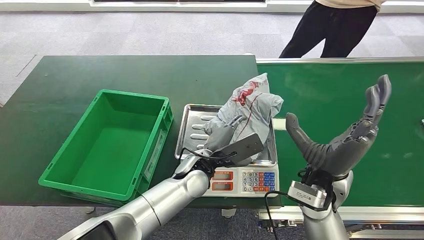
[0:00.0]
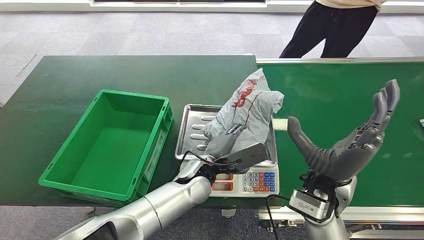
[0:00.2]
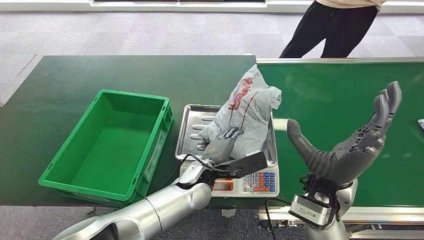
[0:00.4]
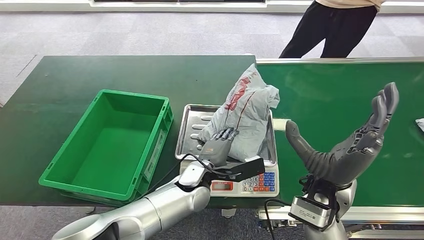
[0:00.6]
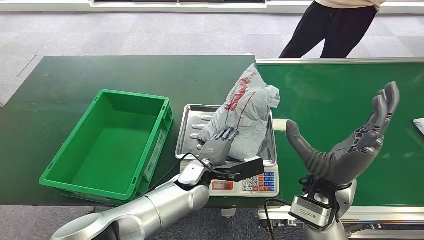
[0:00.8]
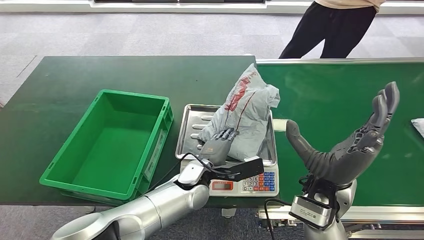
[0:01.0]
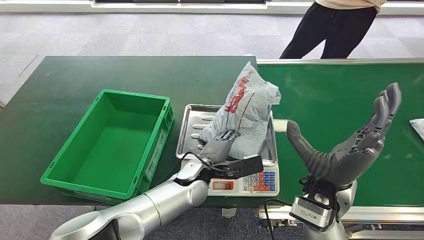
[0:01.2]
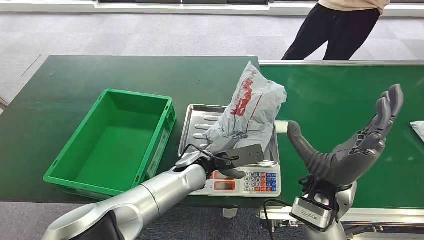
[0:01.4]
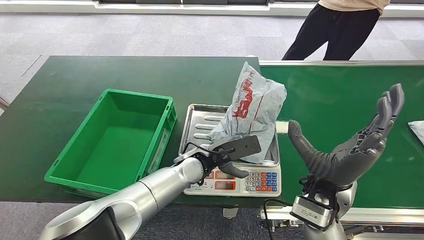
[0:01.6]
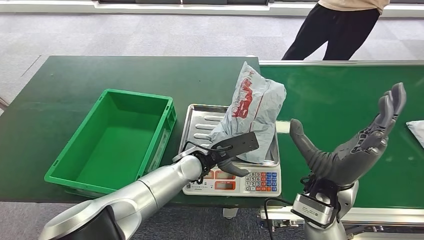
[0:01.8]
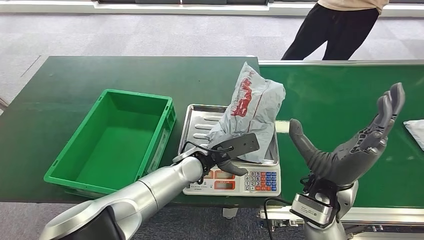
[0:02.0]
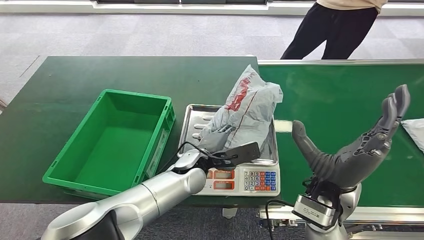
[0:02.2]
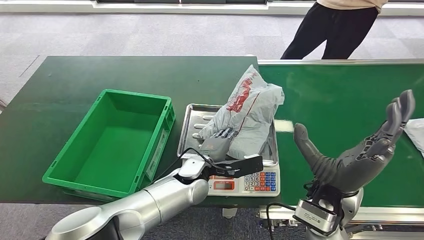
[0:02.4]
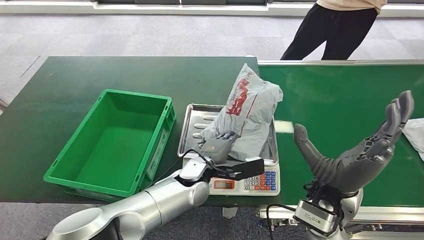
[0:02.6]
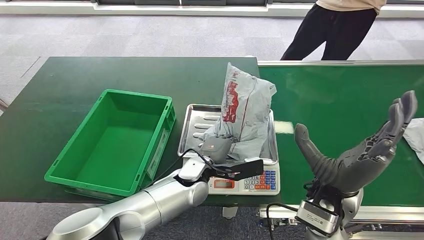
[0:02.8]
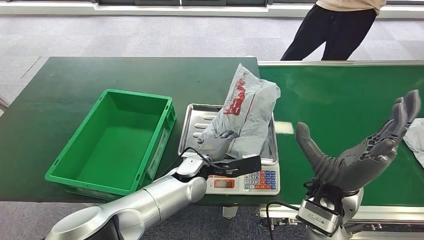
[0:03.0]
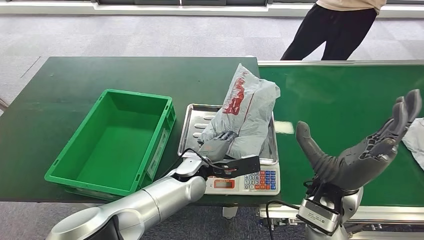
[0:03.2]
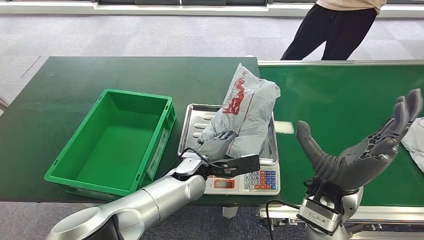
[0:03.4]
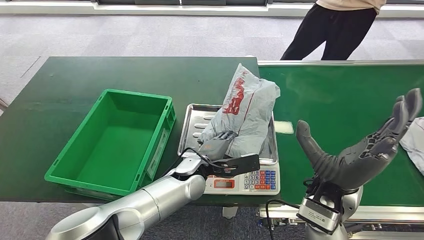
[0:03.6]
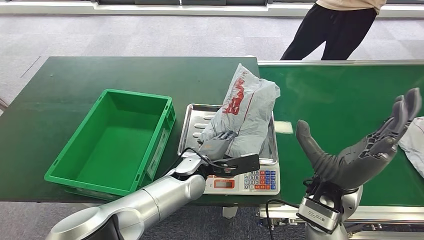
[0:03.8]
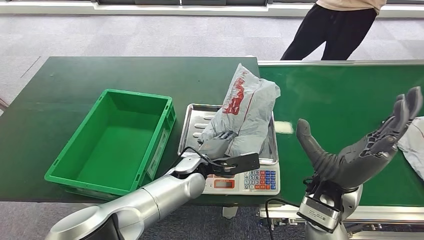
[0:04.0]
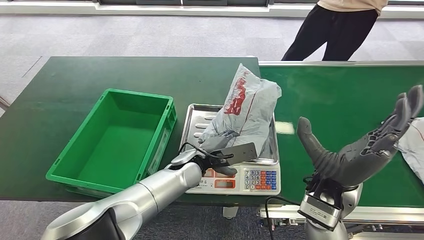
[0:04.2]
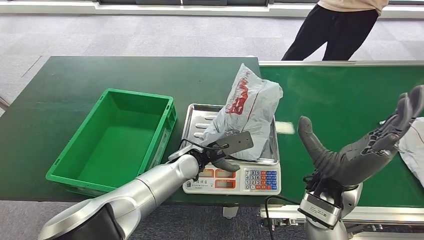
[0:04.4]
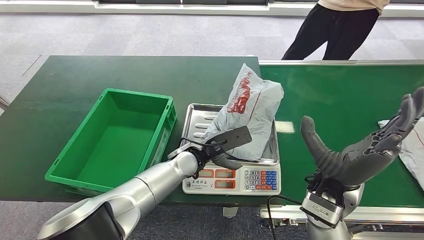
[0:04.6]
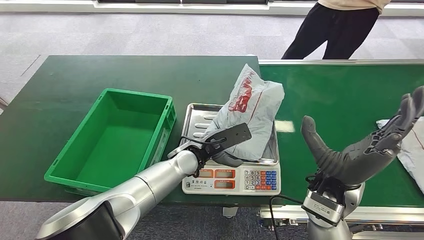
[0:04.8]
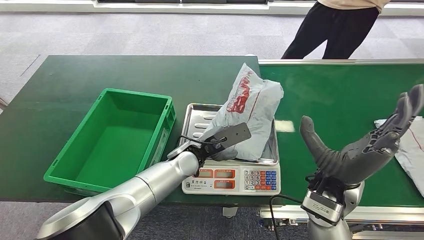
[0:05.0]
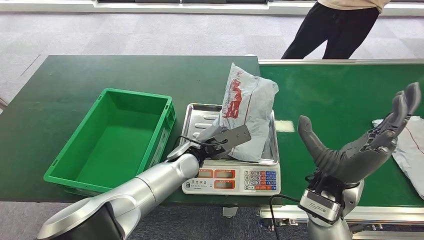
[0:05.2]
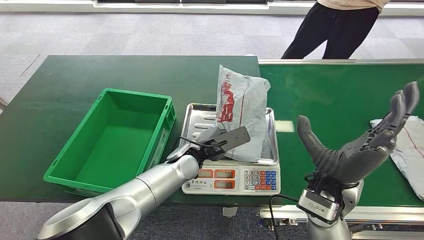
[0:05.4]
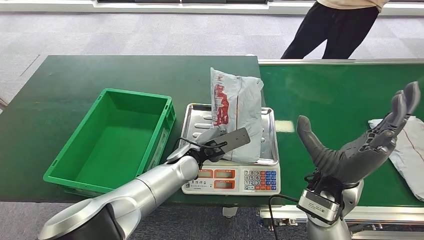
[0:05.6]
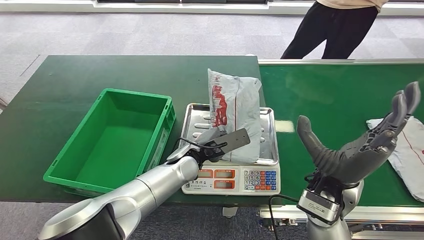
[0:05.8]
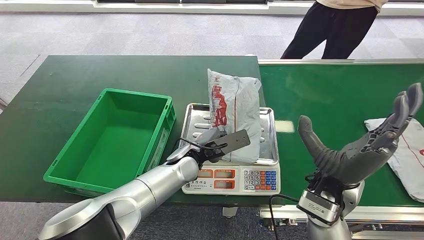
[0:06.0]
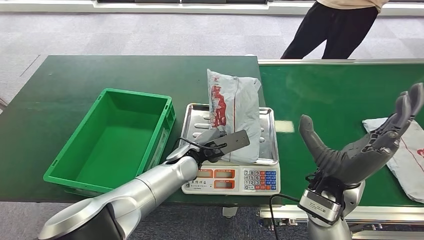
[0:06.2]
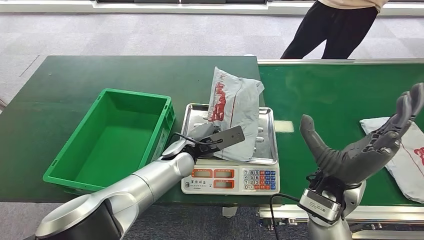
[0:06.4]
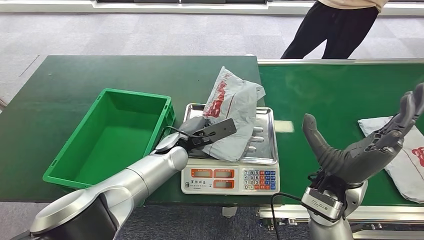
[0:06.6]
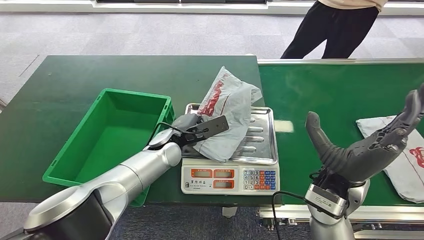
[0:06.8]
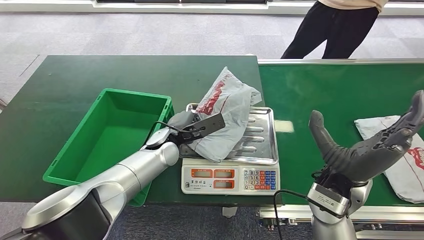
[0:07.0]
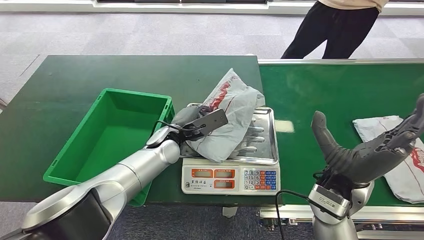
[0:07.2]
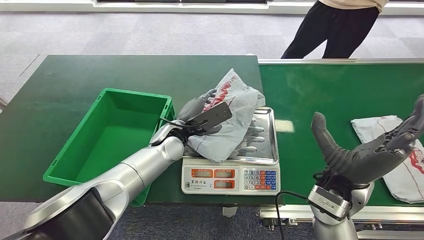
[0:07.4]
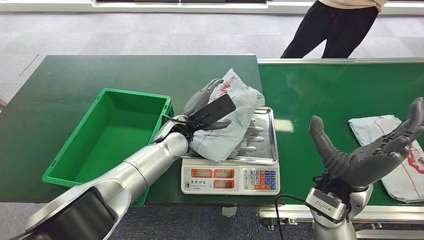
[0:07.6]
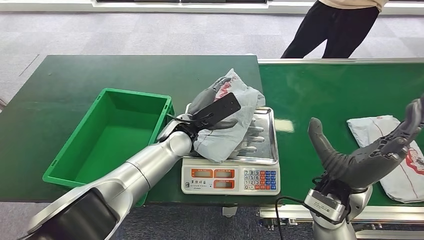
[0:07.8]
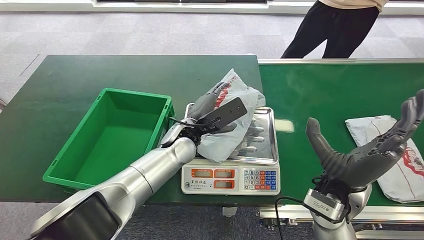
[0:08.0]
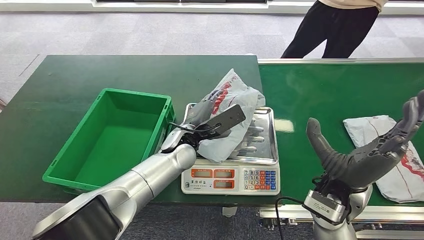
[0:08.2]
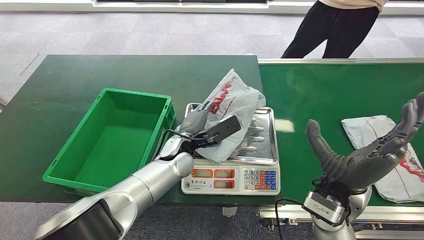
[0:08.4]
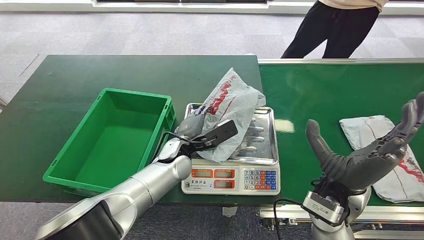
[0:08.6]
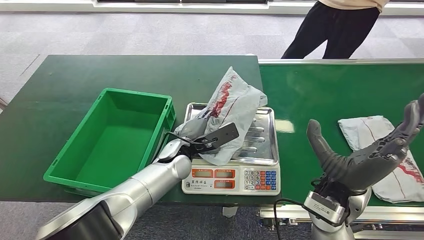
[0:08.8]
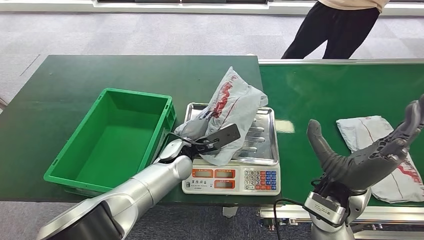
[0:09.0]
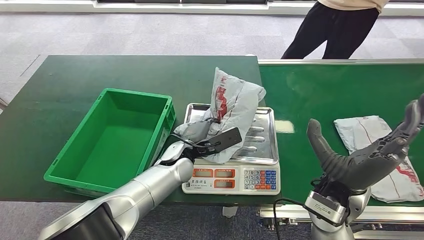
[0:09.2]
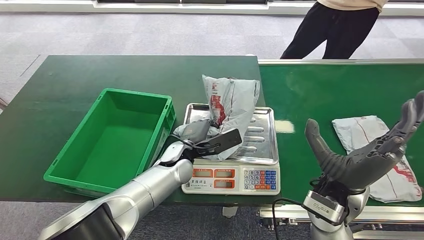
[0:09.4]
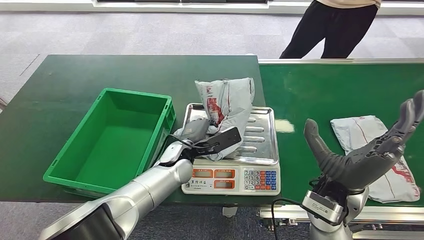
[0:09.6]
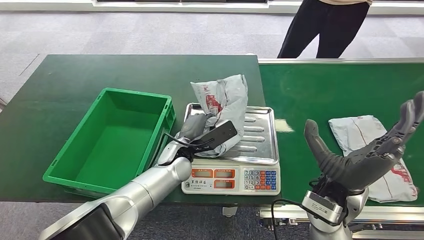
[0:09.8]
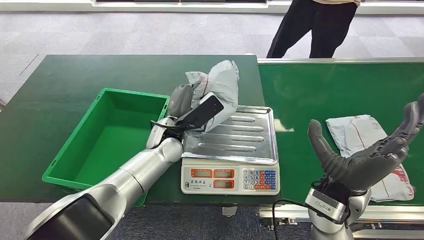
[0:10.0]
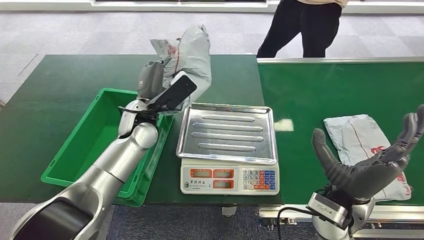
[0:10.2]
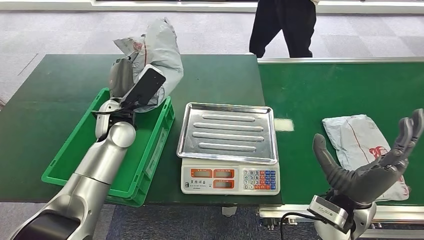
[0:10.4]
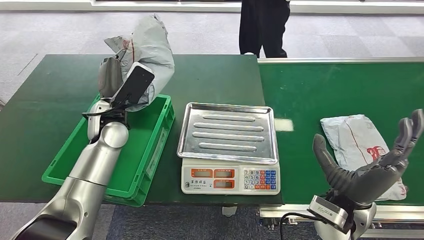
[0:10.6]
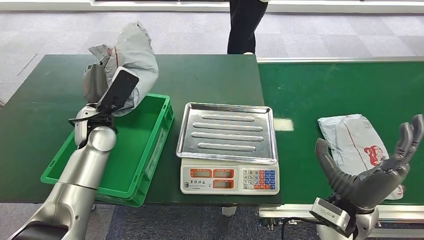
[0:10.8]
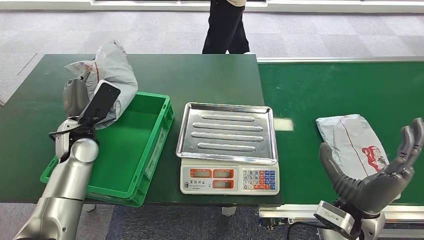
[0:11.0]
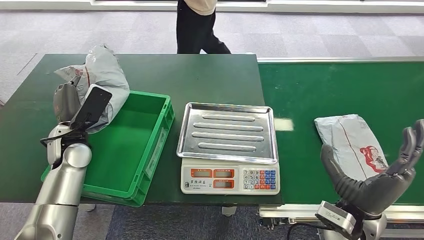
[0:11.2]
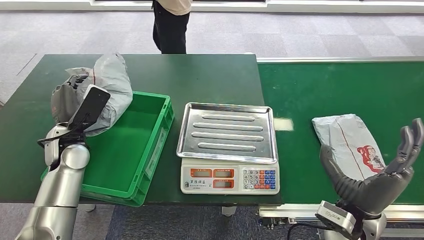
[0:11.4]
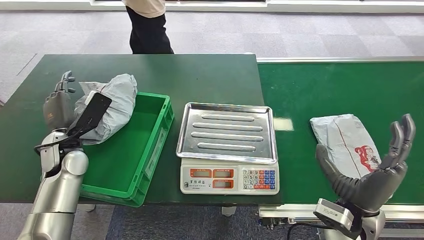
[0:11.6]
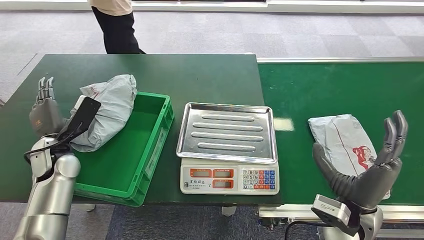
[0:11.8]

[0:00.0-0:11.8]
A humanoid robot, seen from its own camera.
Step, 0:00.0 to 0:10.6: Pick up the package from the inbound machine.
Step, 0:10.8 to 0:11.8: Place the package into the parcel locker.
0:04.4 to 0:06.0: There are only small adjustments of the hands.
0:07.4 to 0:08.8: The left hand shifts by roughly 5 cm.
